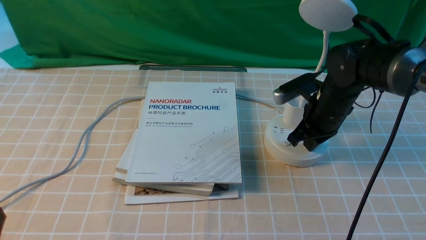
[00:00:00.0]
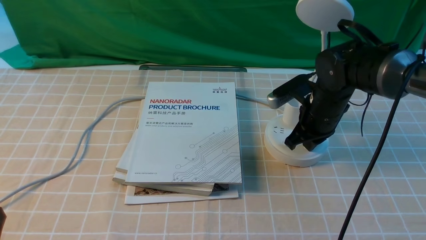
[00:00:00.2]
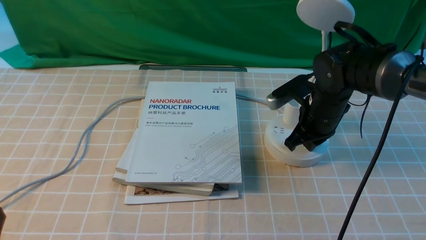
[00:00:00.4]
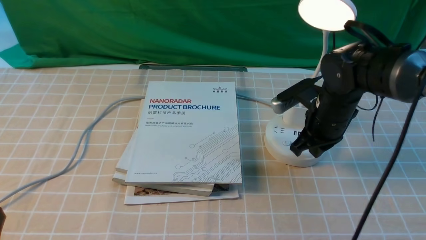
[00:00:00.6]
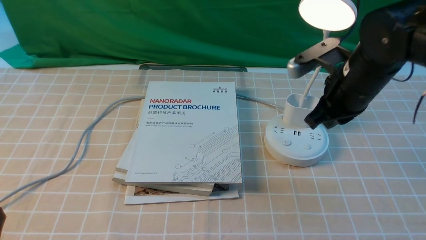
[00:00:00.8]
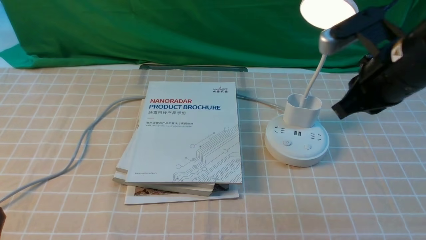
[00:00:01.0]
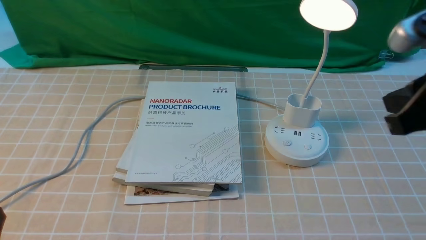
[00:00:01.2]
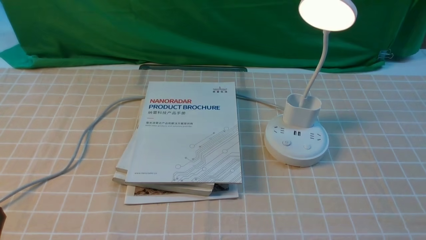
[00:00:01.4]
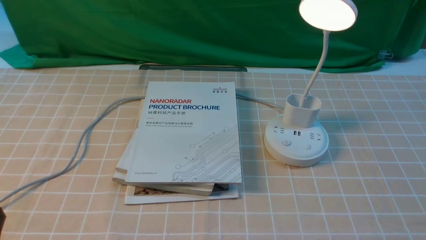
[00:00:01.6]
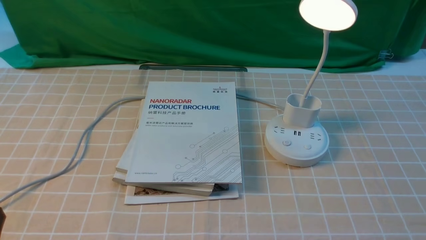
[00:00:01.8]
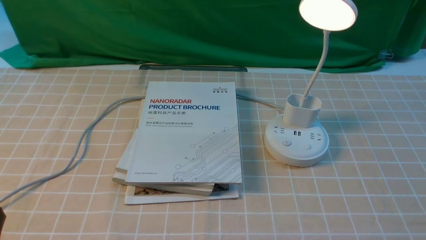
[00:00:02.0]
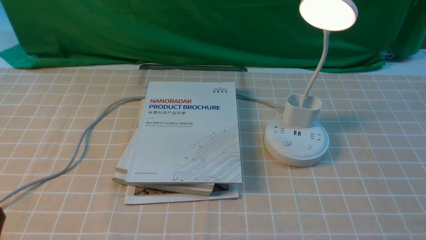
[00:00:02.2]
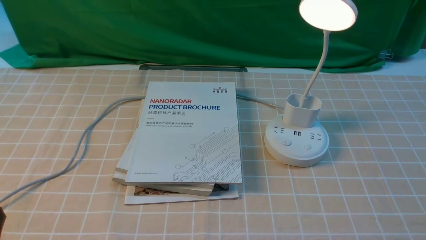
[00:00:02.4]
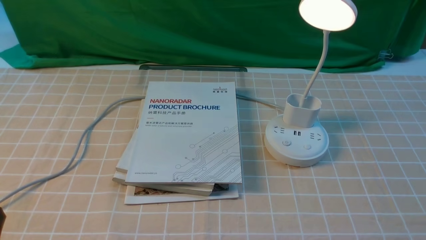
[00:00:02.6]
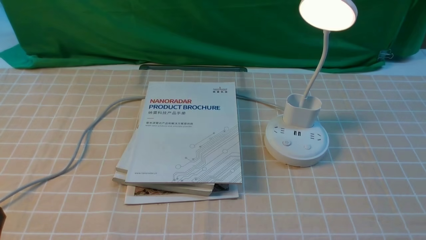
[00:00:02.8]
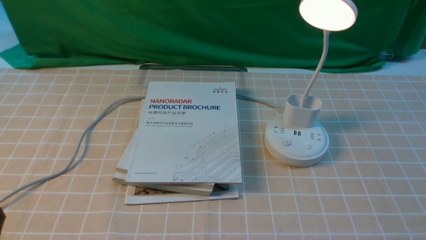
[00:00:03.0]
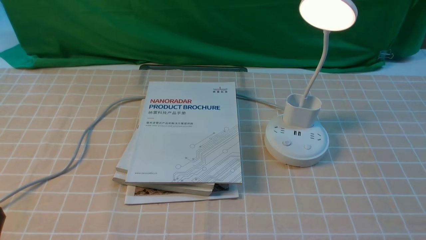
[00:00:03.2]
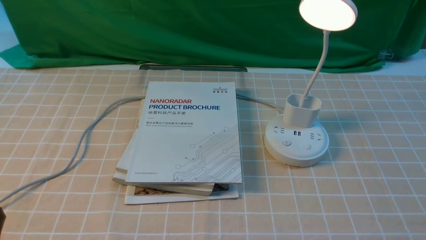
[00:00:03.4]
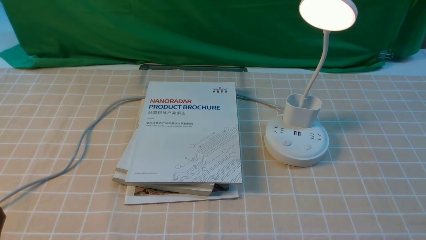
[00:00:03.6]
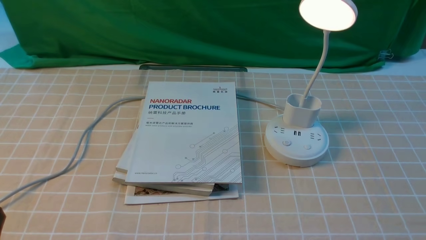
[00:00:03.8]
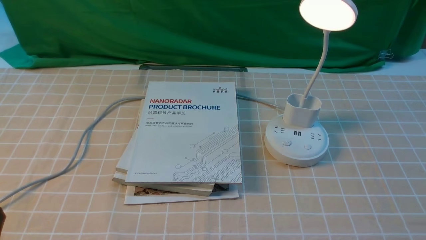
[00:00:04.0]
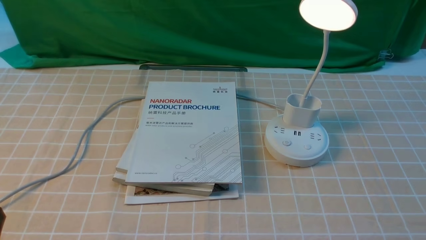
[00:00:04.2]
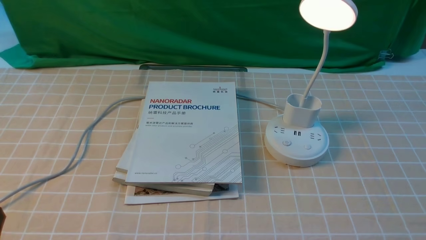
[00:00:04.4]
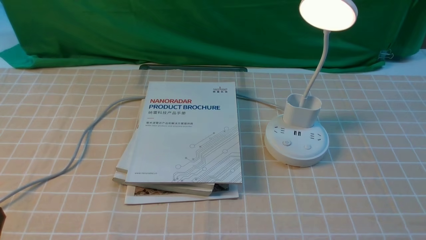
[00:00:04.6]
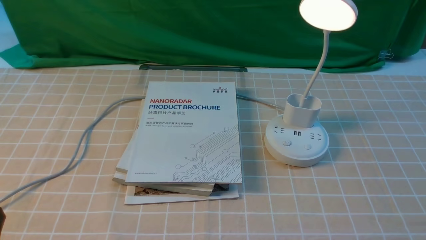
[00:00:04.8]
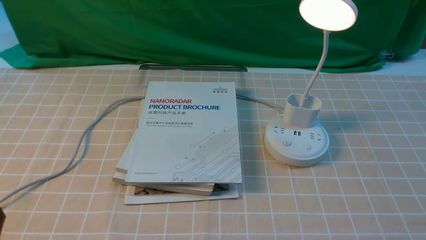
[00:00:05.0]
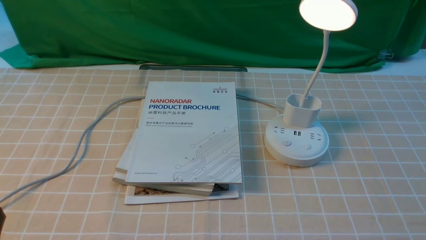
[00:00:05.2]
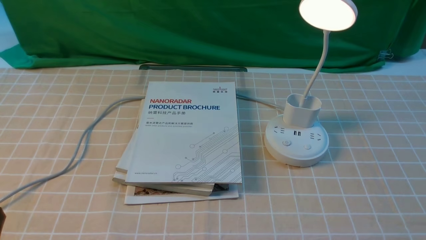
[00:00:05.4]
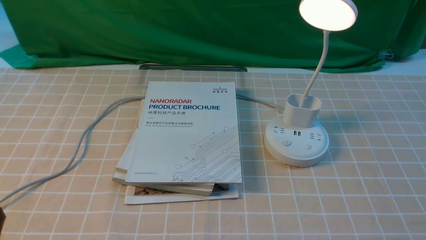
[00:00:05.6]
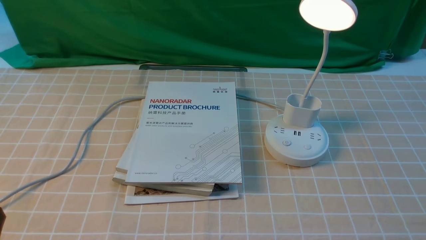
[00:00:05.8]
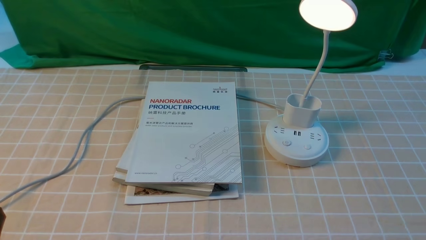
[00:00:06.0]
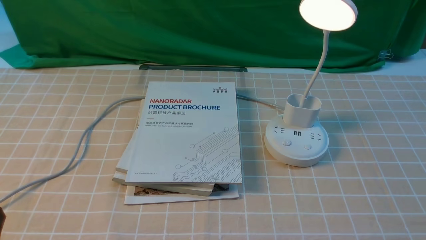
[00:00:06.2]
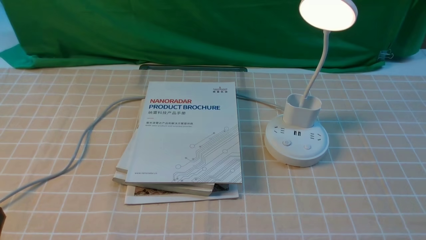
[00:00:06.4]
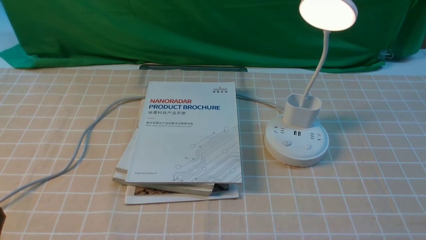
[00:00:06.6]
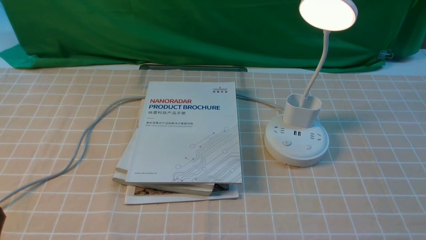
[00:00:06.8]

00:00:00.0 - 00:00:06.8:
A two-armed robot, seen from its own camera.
00:00:00.0 - 00:00:01.4: The right gripper heads backward and upward, covering roughly 30 cm.
